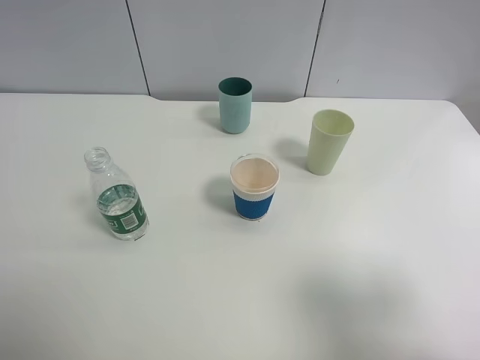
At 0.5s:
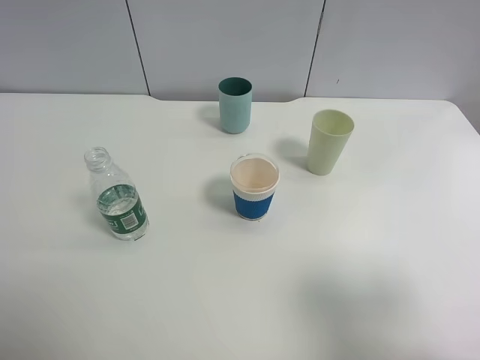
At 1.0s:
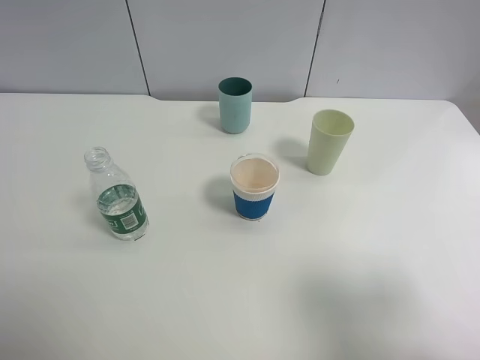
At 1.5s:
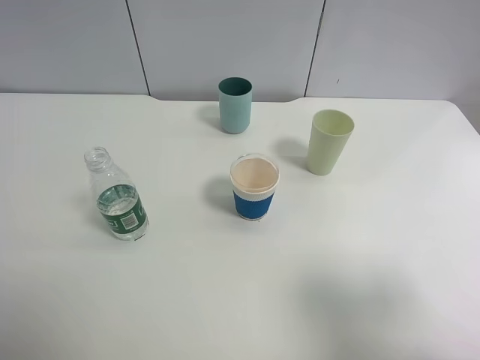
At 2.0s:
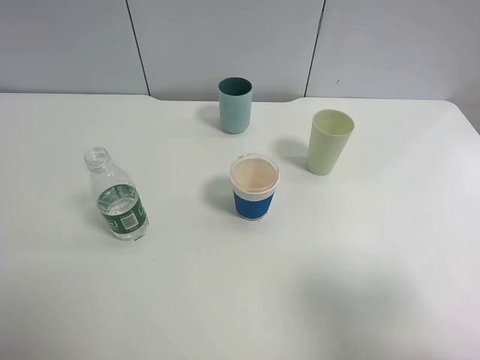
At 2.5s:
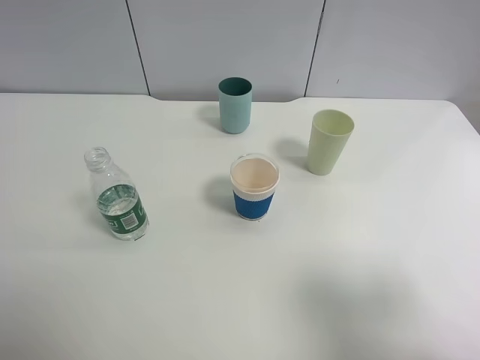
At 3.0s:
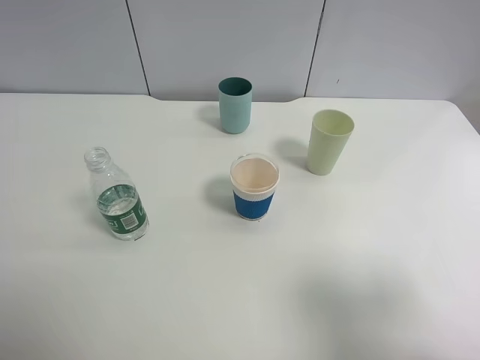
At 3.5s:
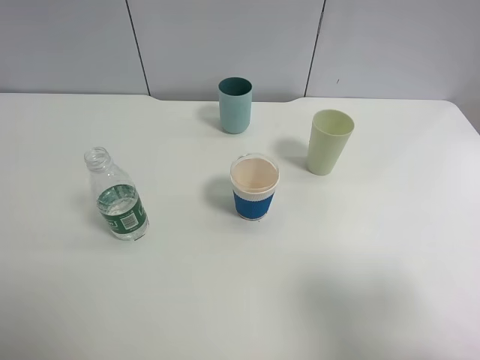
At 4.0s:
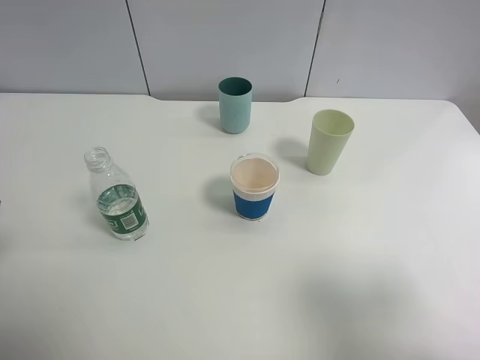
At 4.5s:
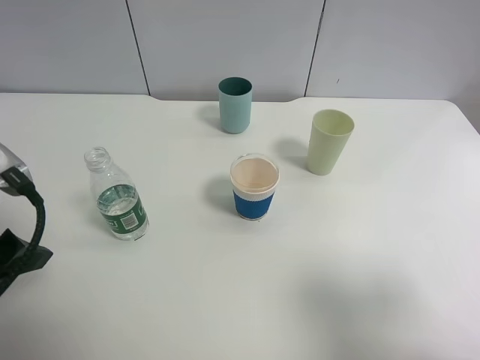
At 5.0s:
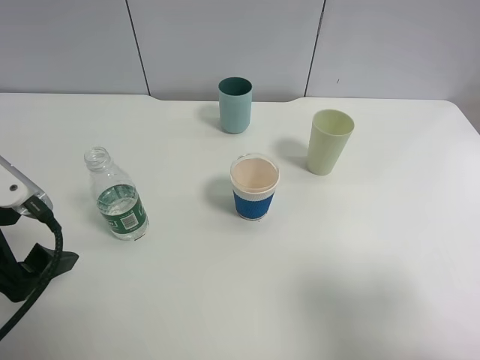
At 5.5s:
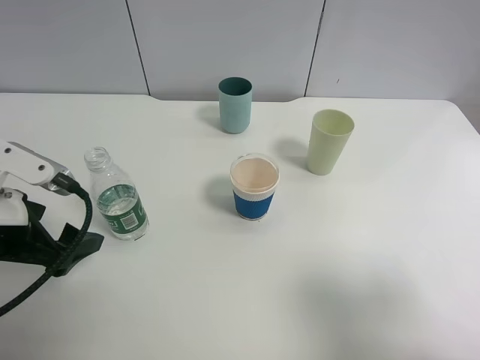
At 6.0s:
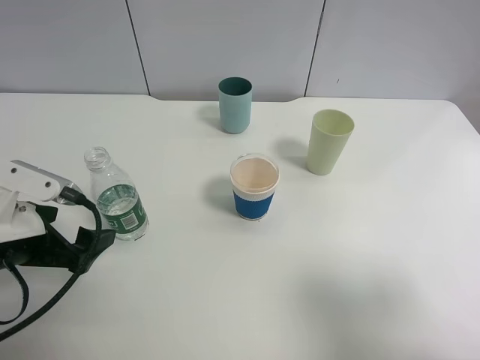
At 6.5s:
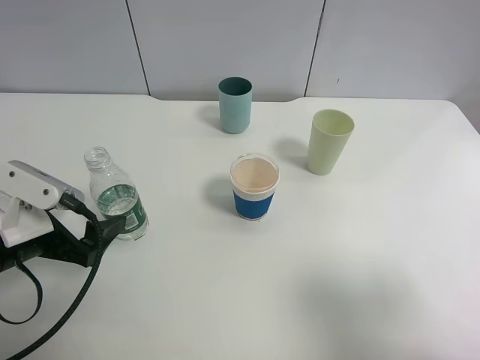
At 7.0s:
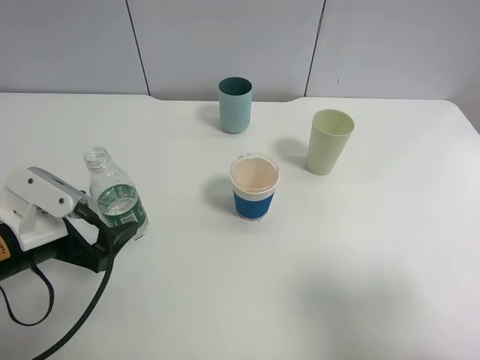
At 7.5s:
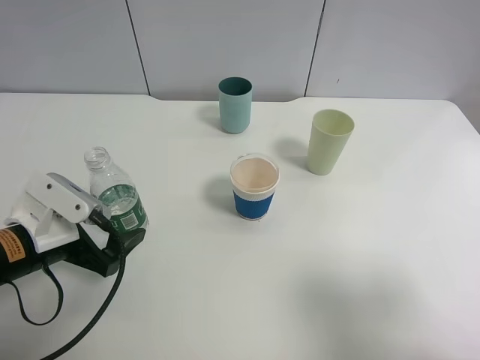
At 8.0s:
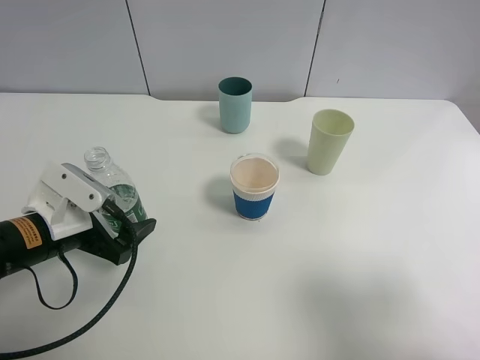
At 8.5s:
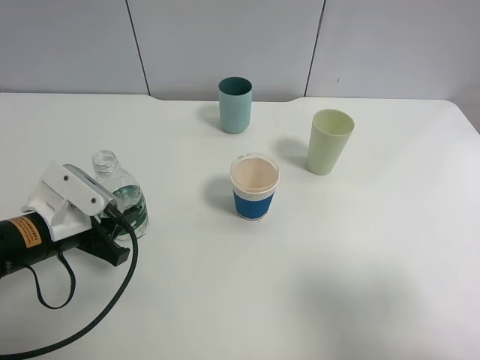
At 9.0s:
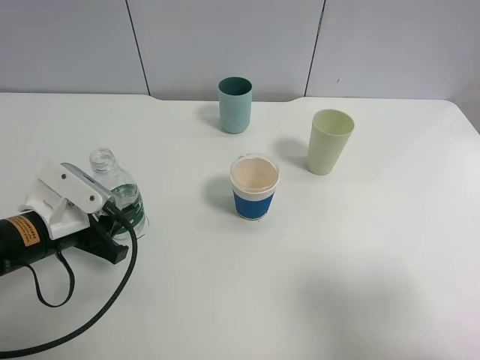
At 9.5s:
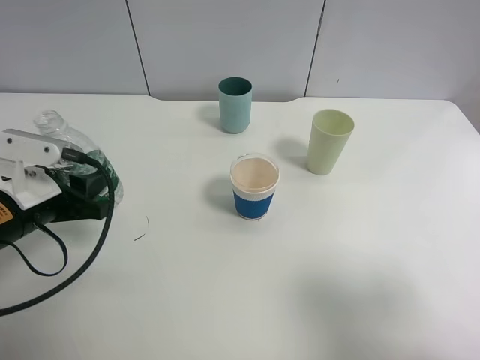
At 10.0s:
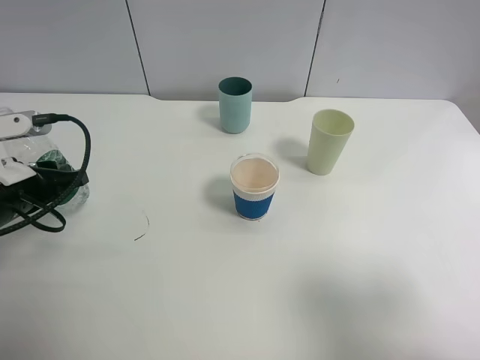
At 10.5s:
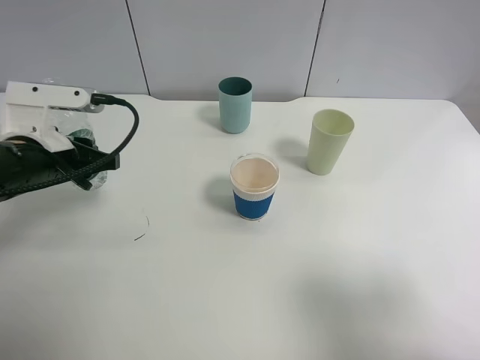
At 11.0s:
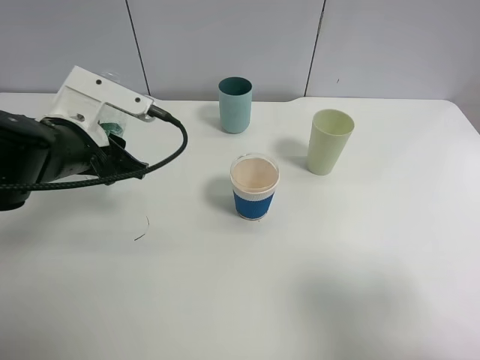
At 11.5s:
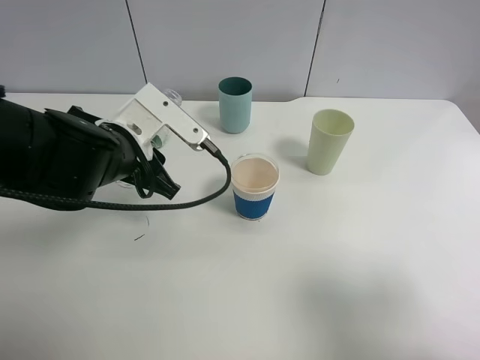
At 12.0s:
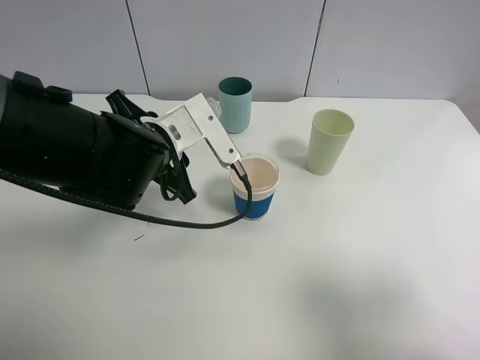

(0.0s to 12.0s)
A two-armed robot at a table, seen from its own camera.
Task of the whole recording: use a clamp to hold the bottle of the drink, pour the beverage into a random cup, then clamp the cup containing the drink and pour the drink into another random cup.
Step, 0.0s - 10.5s: Pick up the water bottle with left gripper.
0.0s - 2.0s: The two grippers keep their place.
4.0s - 6.0s: The left gripper shifts approximately 15 cm downward.
6.0s - 8.0s: The left gripper moves about 5 cm.
8.0s - 10.0s: The left gripper moves approximately 5 cm, and closes.
10.0s - 12.0s: The left gripper heads to the right, covering about 15 cm.

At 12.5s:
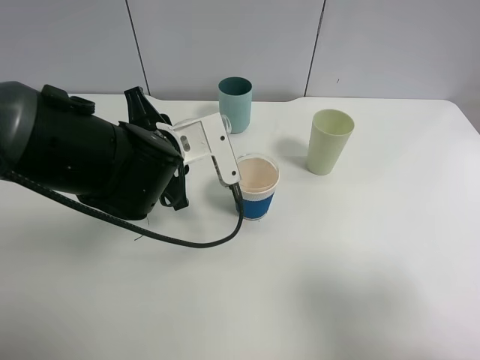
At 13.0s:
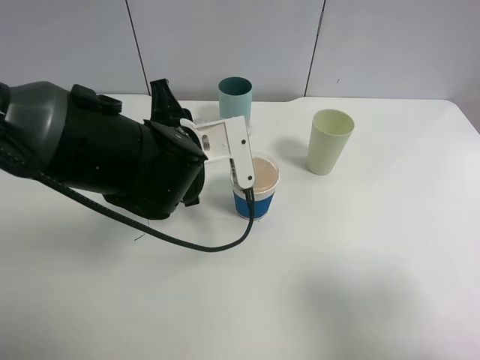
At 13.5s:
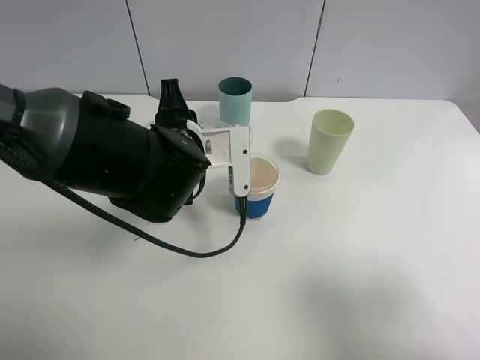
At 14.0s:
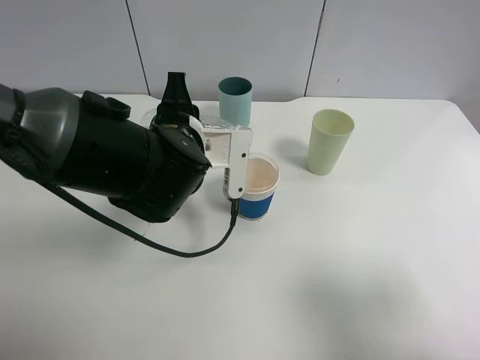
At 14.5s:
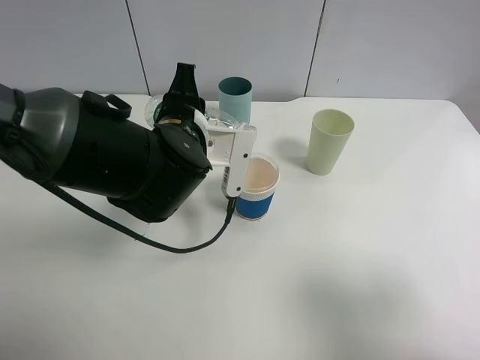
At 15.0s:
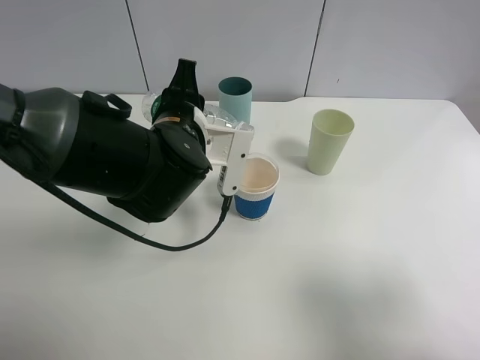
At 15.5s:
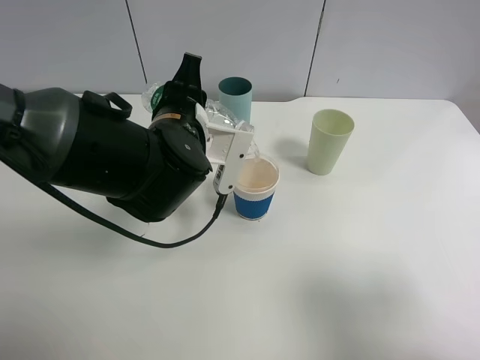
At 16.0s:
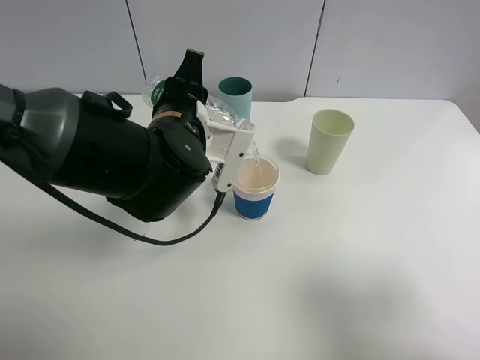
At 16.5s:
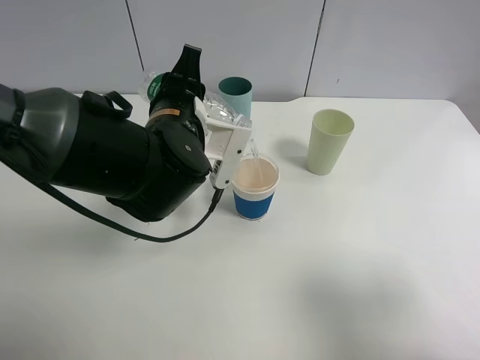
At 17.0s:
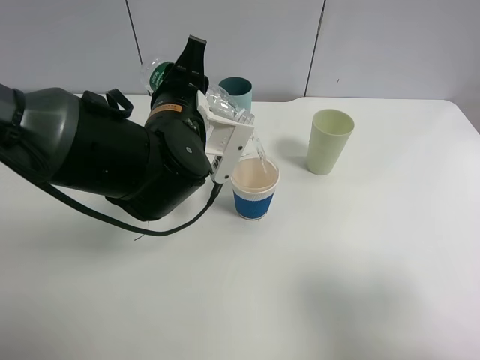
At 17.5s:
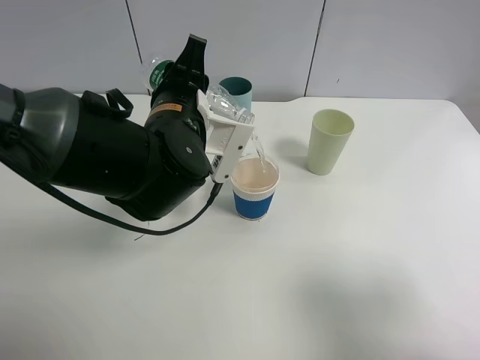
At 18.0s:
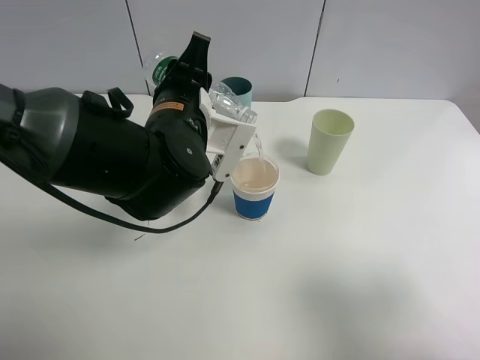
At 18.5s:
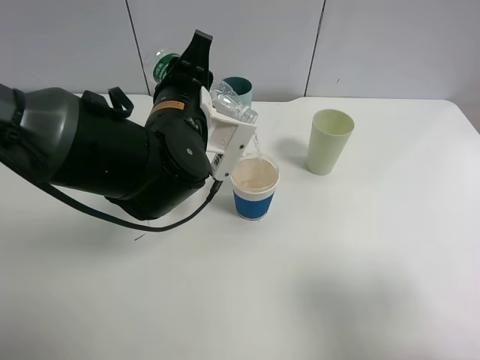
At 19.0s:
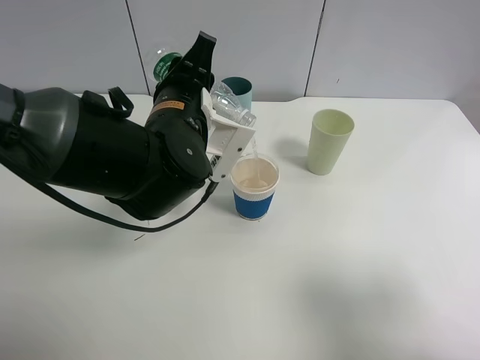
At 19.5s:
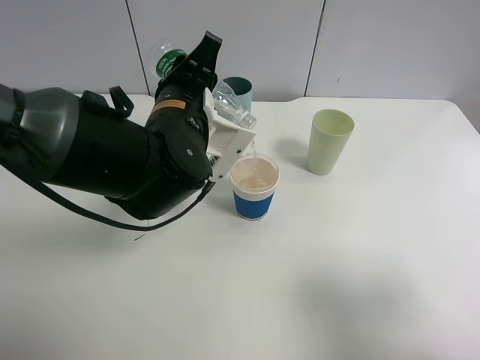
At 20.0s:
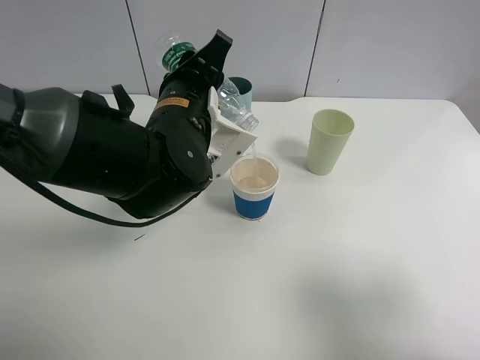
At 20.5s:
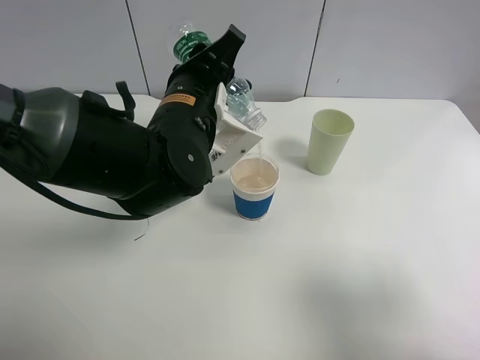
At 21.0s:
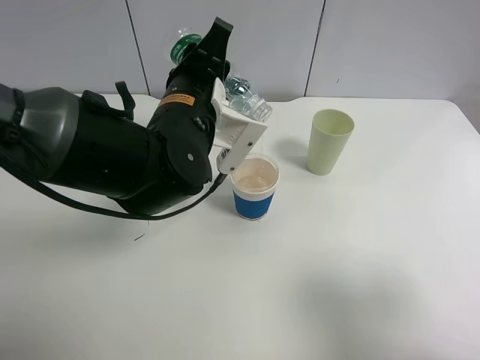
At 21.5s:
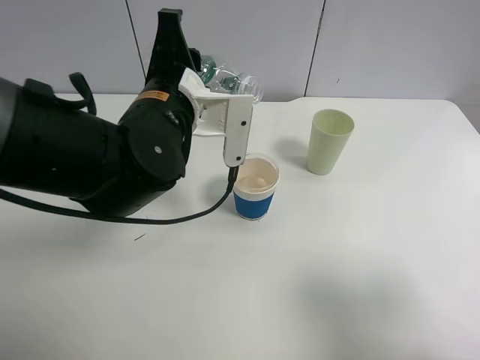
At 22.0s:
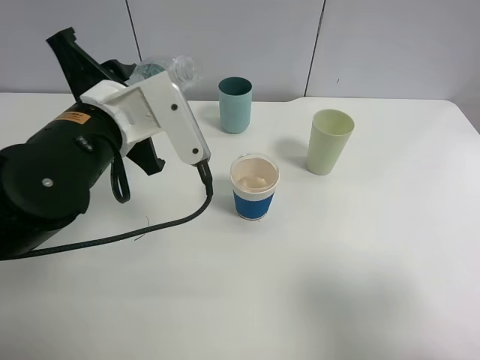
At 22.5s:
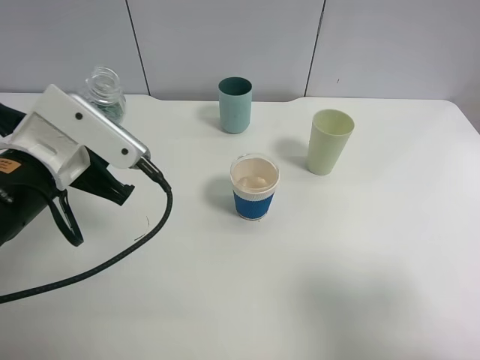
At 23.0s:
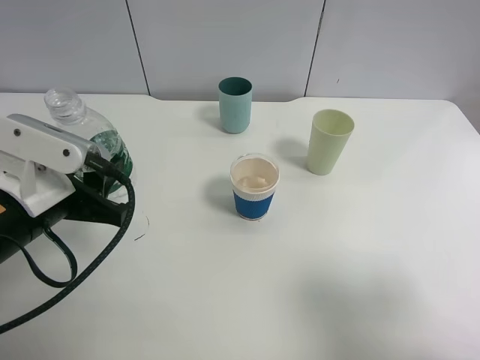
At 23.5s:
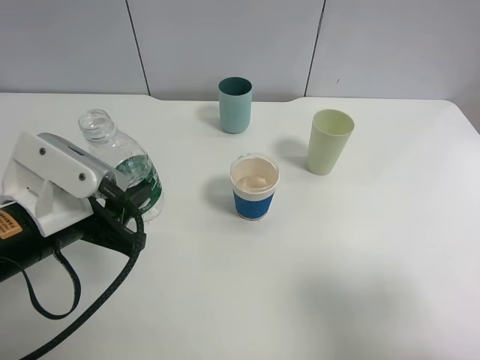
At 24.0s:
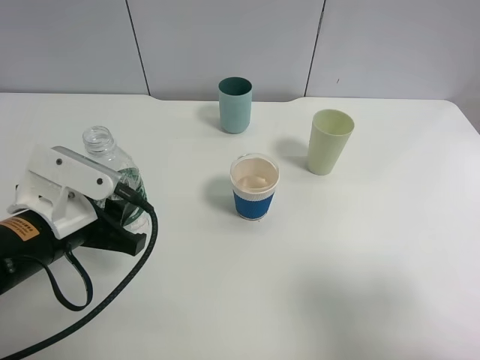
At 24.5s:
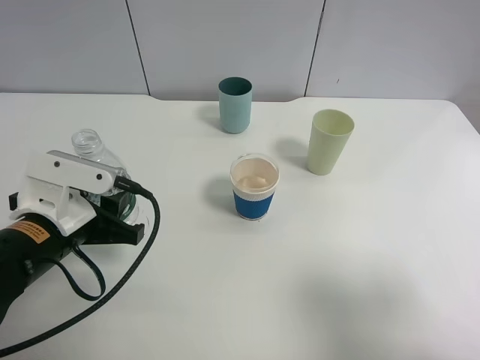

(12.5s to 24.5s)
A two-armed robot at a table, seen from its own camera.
Task of the whole recording: use a clamp to hold the bottle of the drink, pour the beverage into a random cup, then clamp the cup containing the drink and pour the drink into another random cup.
14.5s - 18.5s: There are only small adjustments of the grippers.
18.5s - 20.5s: The grippers move only a little.
20.5s - 22.5s: The left gripper heads to the left and backward, covering about 15 cm.
22.5s - 24.5s: The left gripper shifts some 5 cm downward.

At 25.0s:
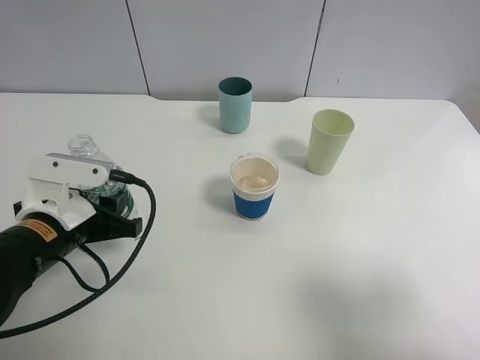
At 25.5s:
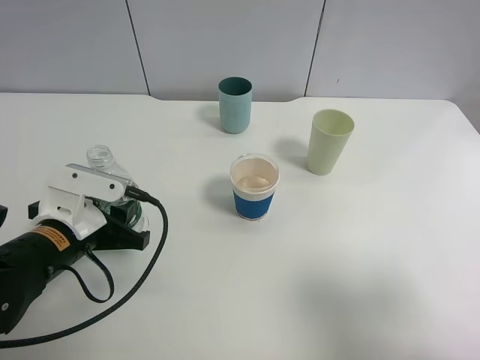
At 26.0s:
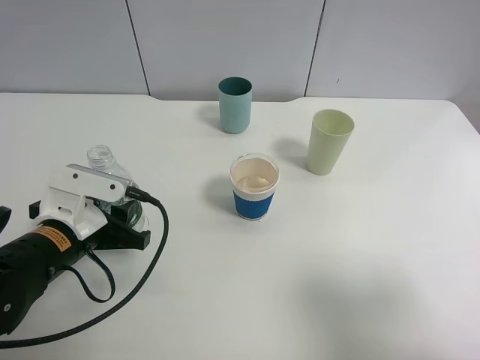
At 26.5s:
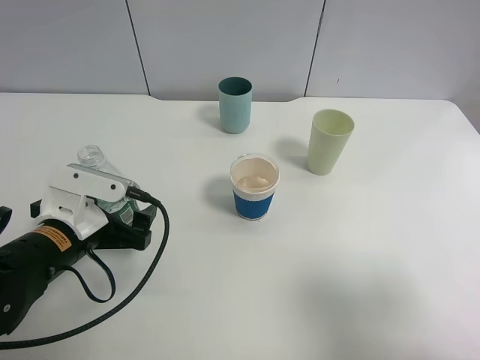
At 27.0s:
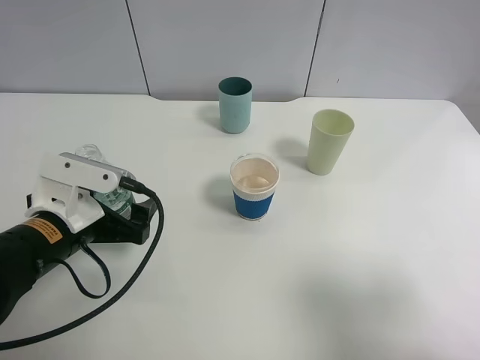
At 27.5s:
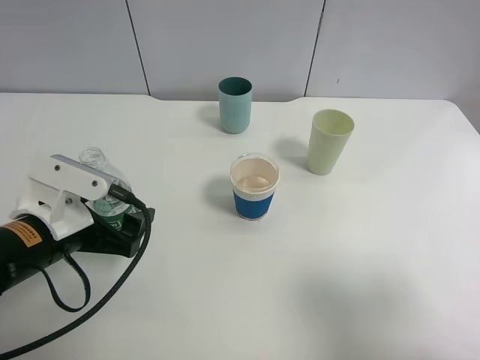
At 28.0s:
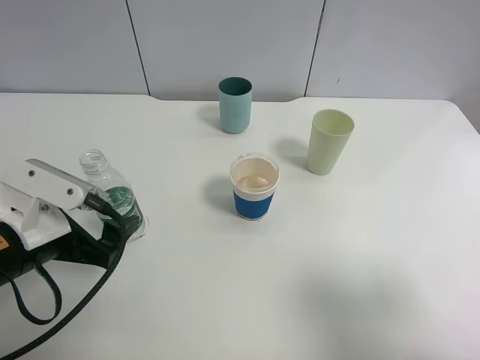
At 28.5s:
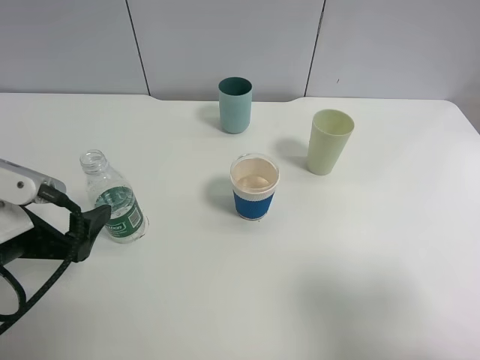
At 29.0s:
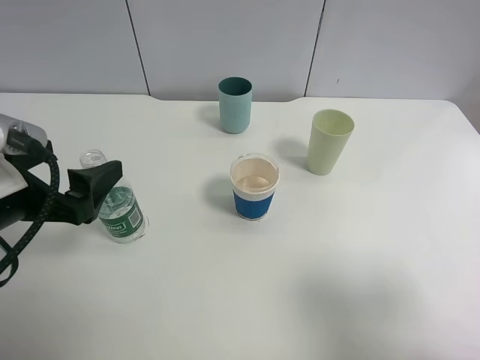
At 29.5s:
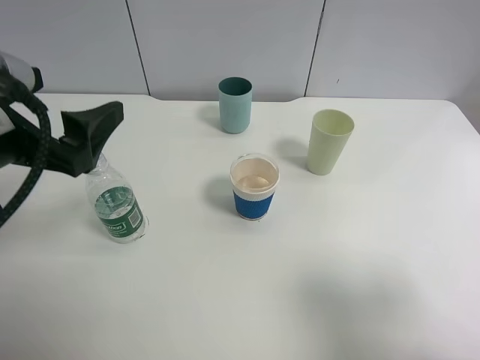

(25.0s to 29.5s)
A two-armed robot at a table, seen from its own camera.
Task of the whole recording: use a clamp to hold the bottle of the drink, pour the beverage into a random cup, then clamp the cup containing the drink and pour the drink into another random cup.
25.0s - 27.0s: The left gripper opens its fingers.
27.0s - 29.5s: The left gripper shifts approximately 15 cm upward.
